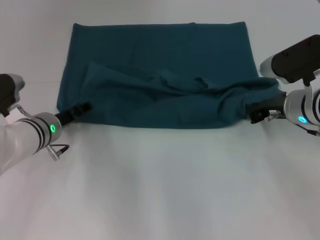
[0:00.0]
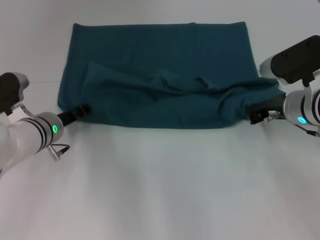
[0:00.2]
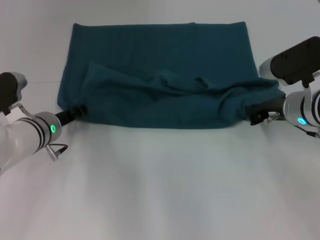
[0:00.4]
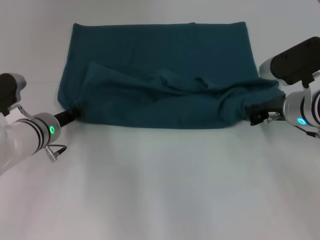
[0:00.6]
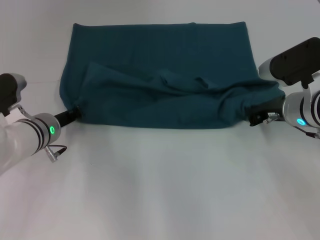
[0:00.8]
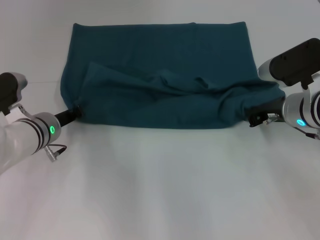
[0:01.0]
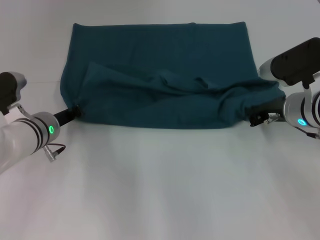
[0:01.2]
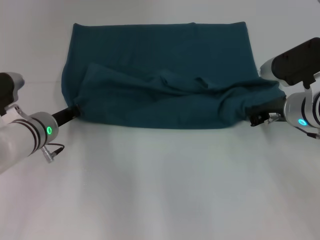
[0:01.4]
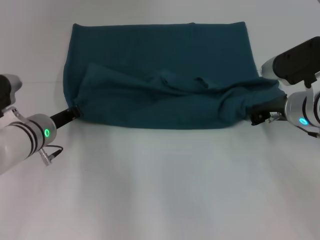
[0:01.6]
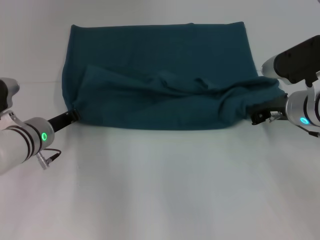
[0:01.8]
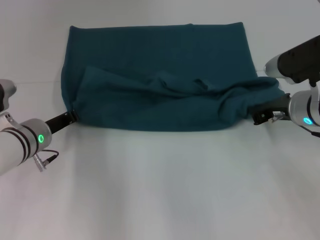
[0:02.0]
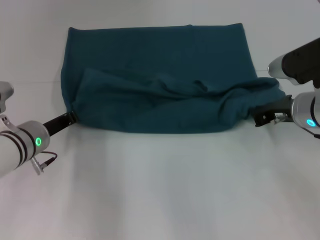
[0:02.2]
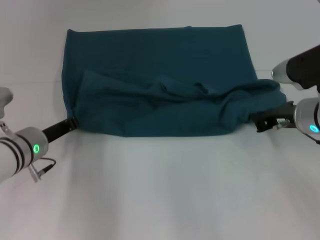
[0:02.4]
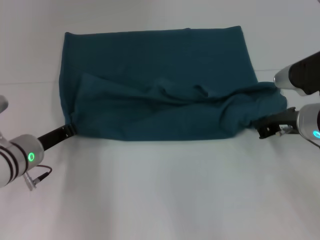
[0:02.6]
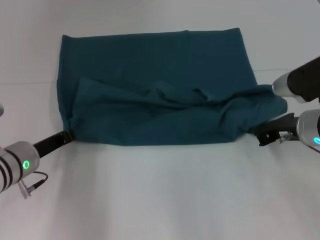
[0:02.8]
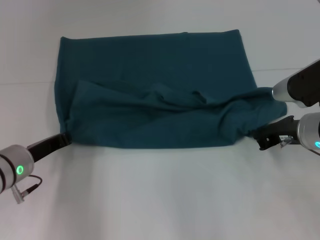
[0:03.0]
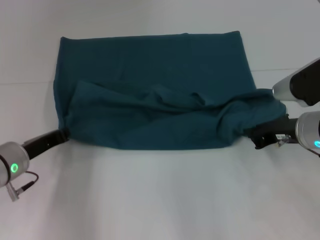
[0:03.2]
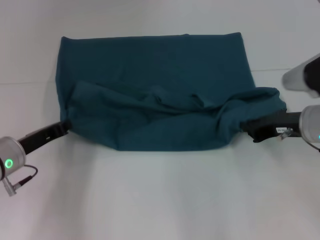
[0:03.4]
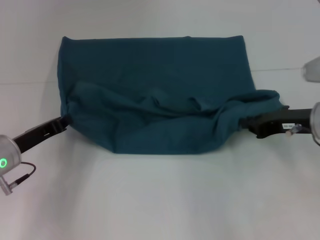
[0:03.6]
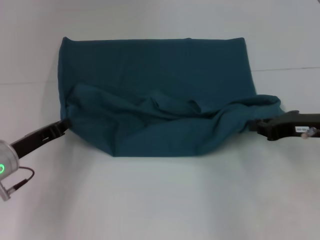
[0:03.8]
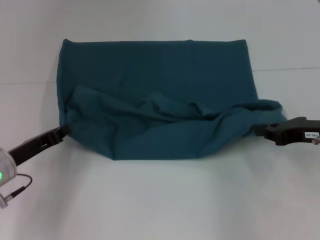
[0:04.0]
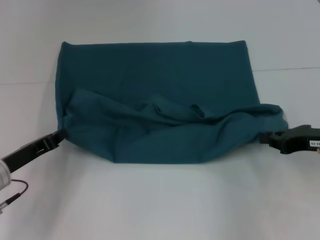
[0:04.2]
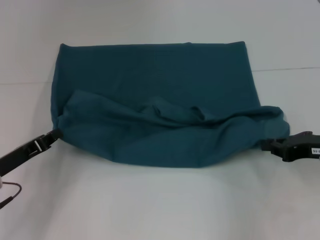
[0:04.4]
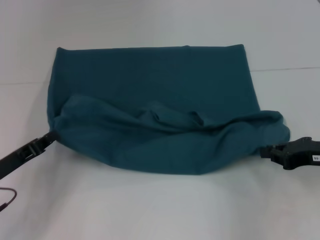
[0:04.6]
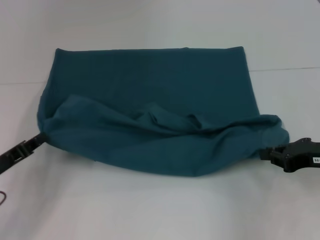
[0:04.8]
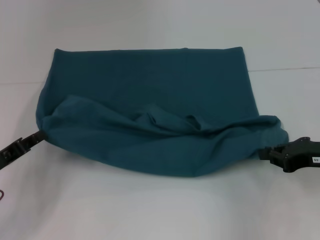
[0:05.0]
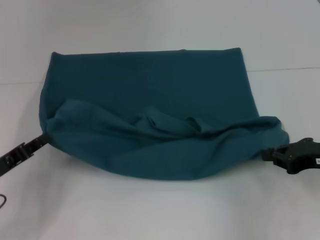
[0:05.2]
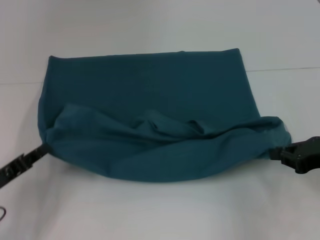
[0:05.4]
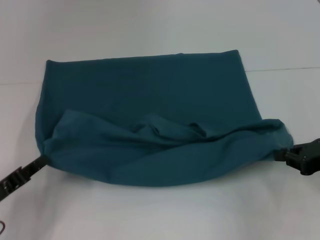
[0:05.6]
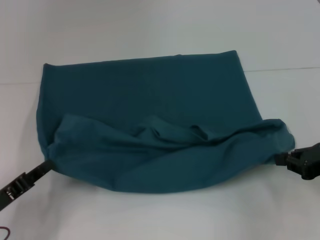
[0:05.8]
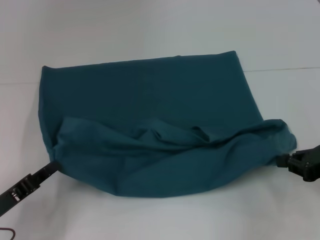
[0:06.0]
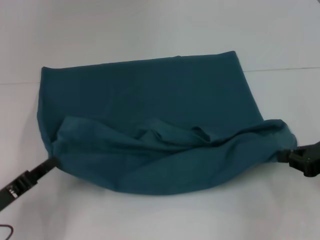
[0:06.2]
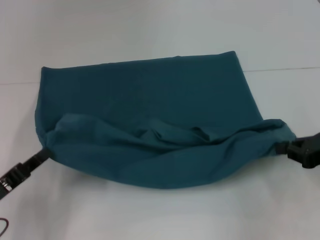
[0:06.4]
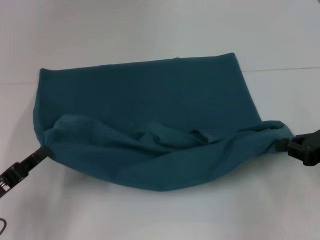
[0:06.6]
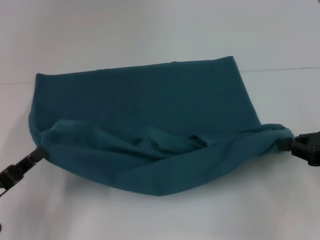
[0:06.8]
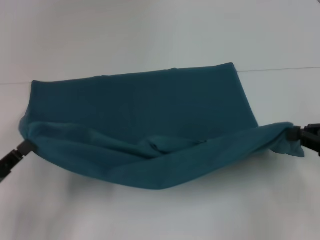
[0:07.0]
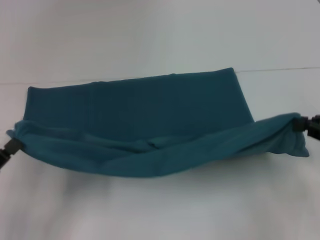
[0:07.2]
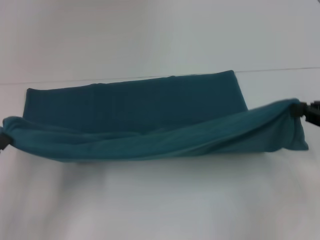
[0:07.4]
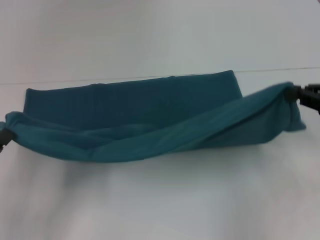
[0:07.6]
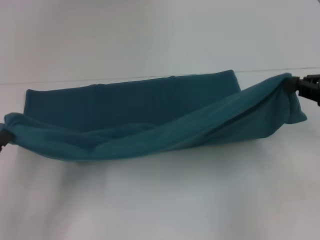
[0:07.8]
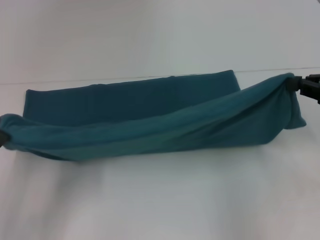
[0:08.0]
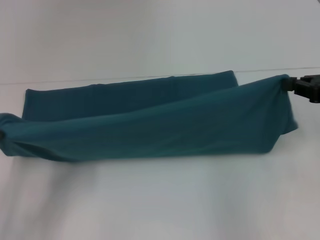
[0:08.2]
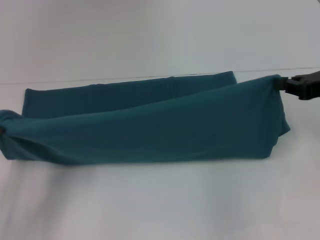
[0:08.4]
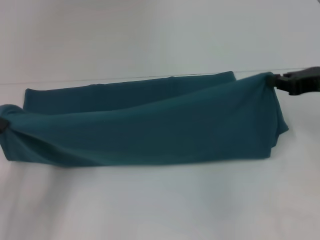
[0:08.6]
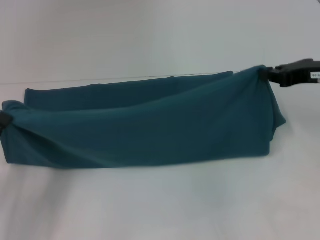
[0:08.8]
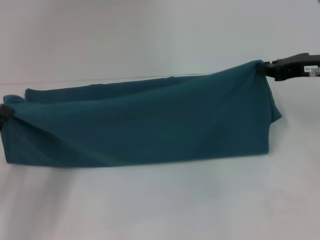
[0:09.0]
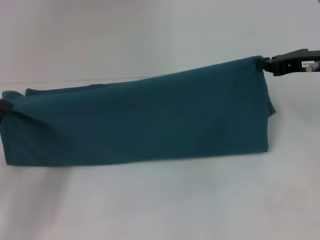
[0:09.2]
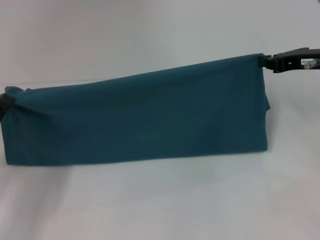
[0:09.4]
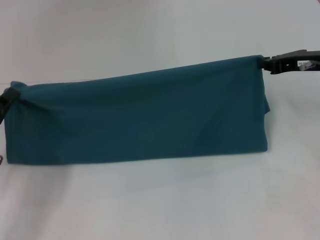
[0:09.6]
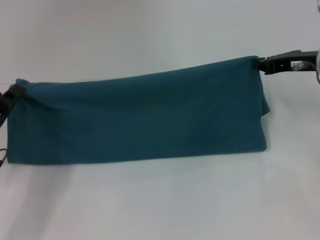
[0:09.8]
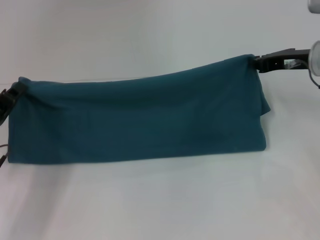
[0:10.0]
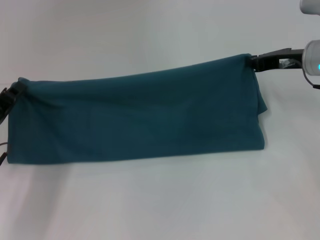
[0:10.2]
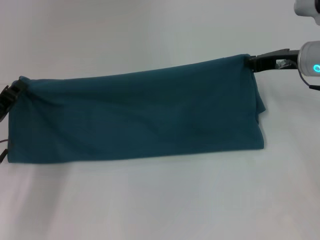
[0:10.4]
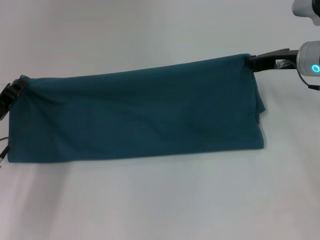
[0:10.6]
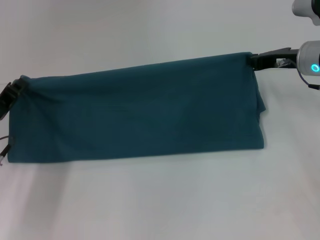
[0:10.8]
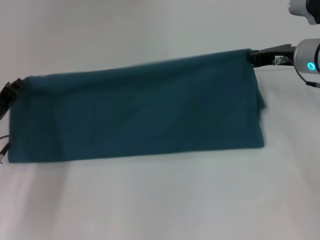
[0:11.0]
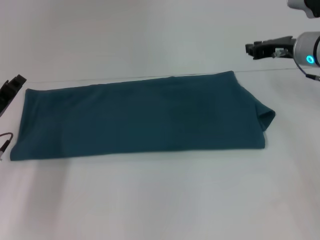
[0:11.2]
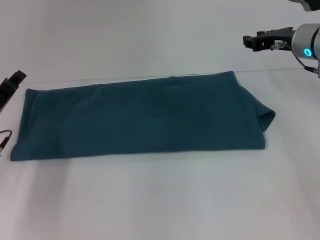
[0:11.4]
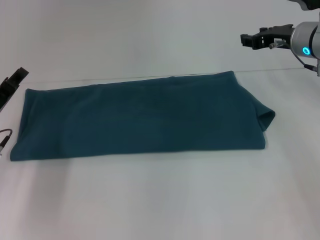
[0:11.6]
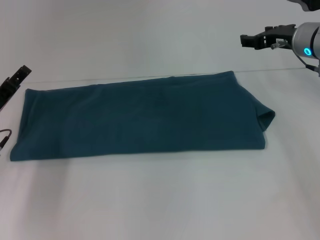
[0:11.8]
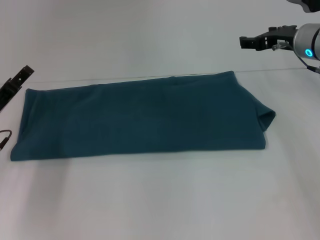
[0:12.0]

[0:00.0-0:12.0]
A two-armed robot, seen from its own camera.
Step, 0:00.0 to 0:07.0: Pull the clothes with your left hand.
Step, 0:00.0 to 0:07.0: Pull the clothes with your right hand.
Step, 0:07.2 to 0:11.2: Fold the clothes to the right.
0:00.0 to 0:01.6: The left gripper closes up.
0:01.6 to 0:03.0: The left gripper is displaced backward by some 5 cm.
0:03.0 to 0:04.4: The right gripper heads to the right, covering roughly 5 cm; the left gripper shifts about 5 cm to the left.
0:04.4 to 0:06.0: The left gripper is displaced backward by about 10 cm.
0:06.0 to 0:07.6: The right gripper is displaced upward by roughly 10 cm.
0:07.6 to 0:09.0: The right gripper heads forward, covering about 10 cm.
0:09.0 to 0:10.4: The left gripper shifts approximately 10 cm forward; the right gripper shifts about 5 cm forward.
0:10.4 to 0:12.0: The left gripper opens its fingers. Meanwhile the right gripper opens.

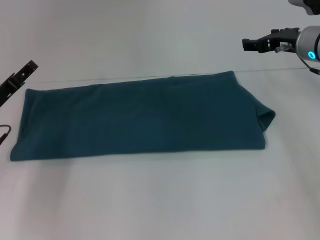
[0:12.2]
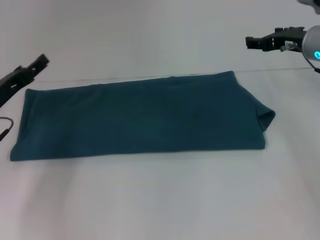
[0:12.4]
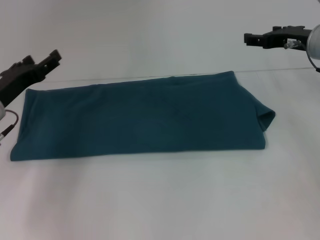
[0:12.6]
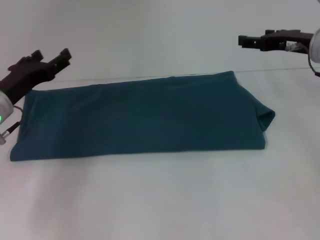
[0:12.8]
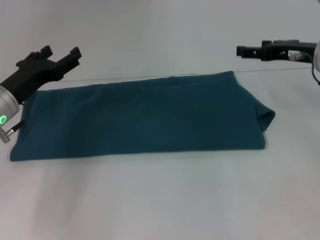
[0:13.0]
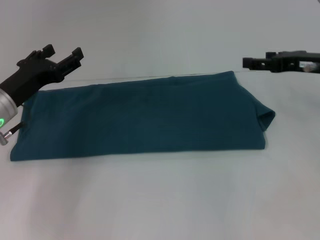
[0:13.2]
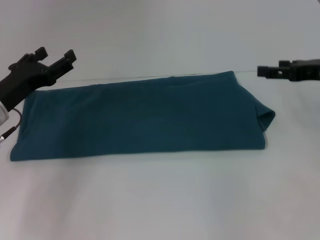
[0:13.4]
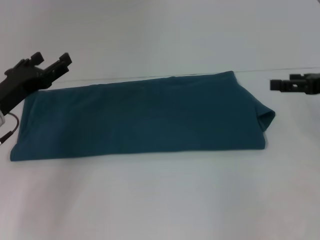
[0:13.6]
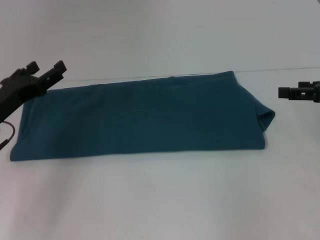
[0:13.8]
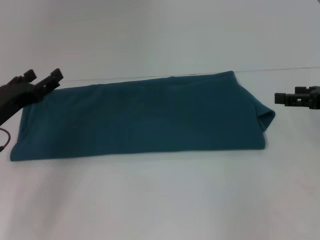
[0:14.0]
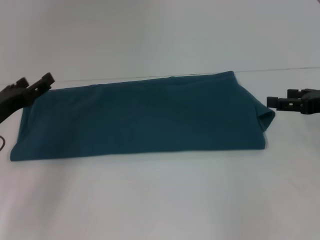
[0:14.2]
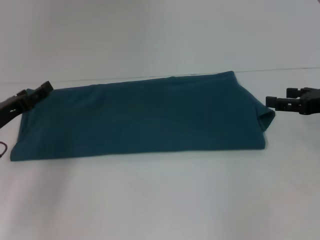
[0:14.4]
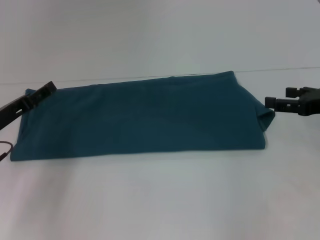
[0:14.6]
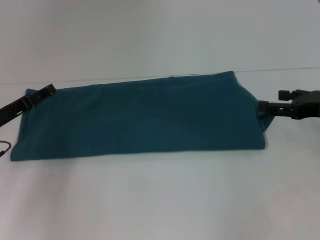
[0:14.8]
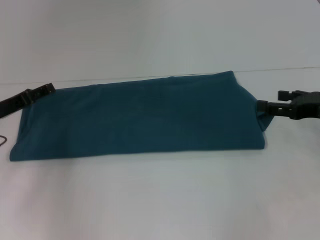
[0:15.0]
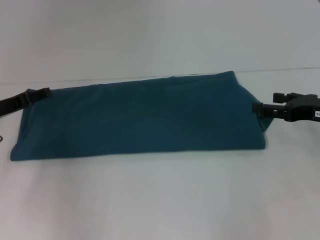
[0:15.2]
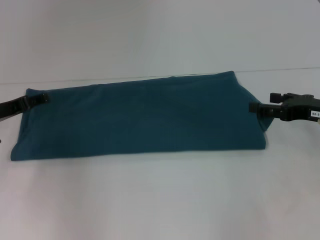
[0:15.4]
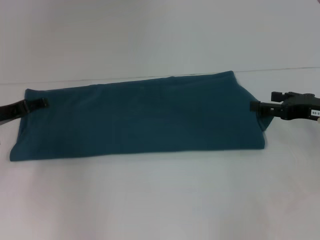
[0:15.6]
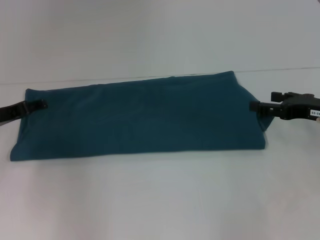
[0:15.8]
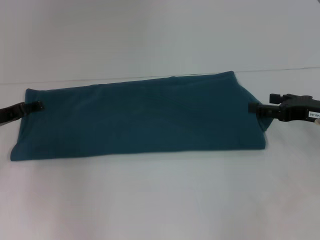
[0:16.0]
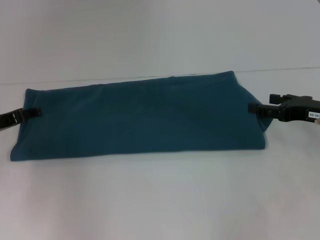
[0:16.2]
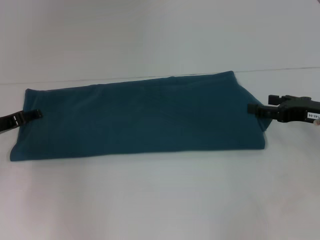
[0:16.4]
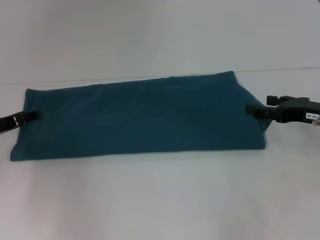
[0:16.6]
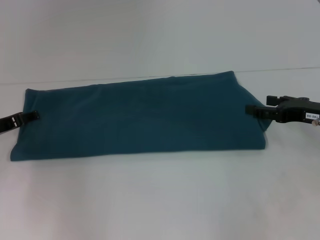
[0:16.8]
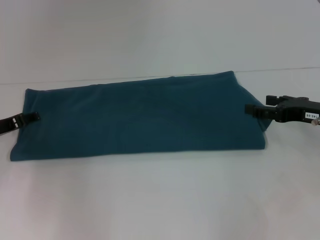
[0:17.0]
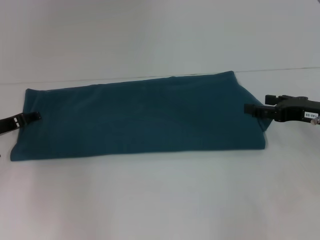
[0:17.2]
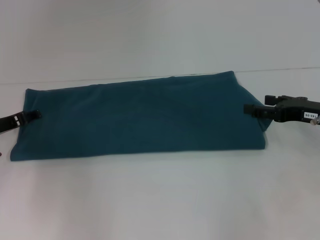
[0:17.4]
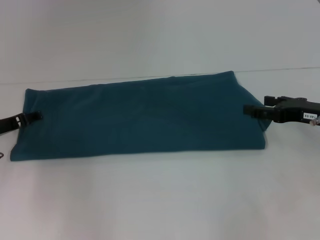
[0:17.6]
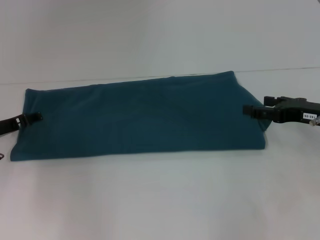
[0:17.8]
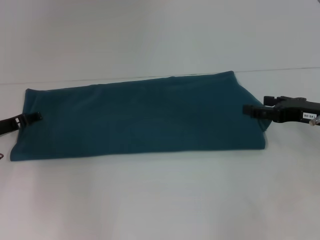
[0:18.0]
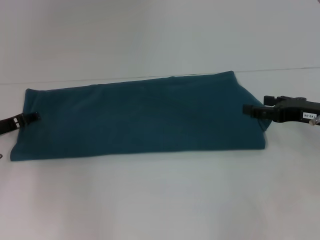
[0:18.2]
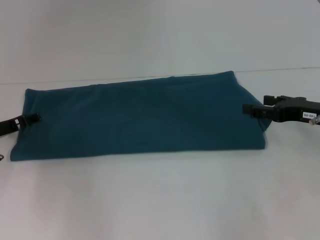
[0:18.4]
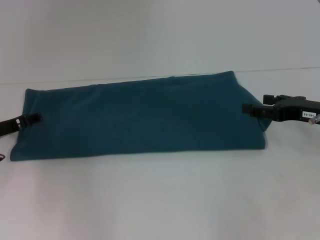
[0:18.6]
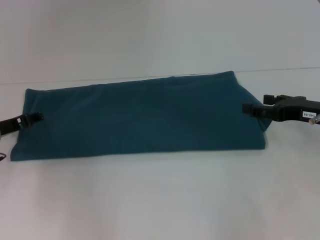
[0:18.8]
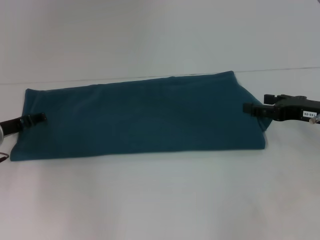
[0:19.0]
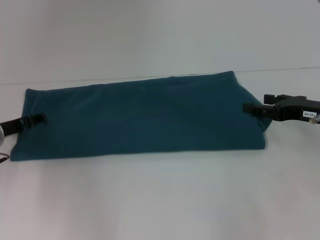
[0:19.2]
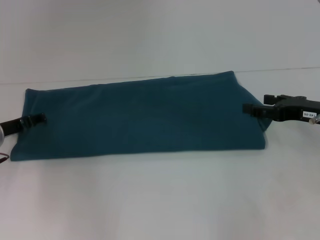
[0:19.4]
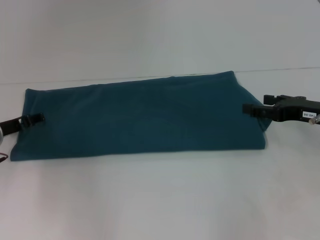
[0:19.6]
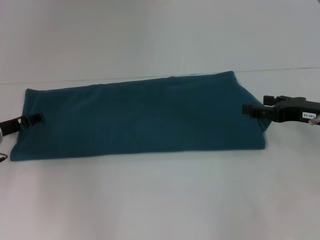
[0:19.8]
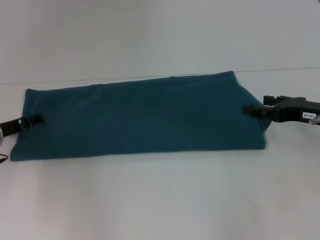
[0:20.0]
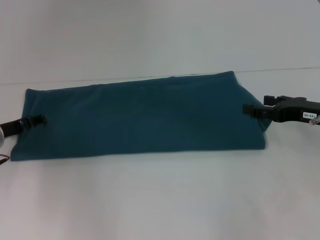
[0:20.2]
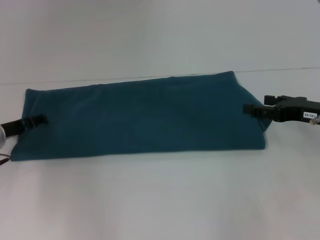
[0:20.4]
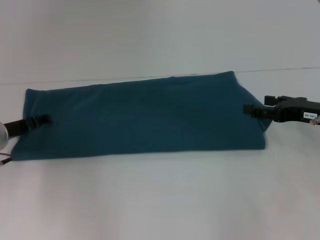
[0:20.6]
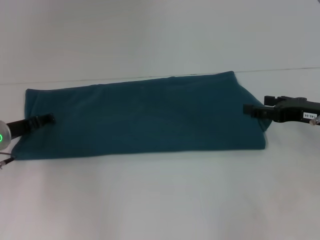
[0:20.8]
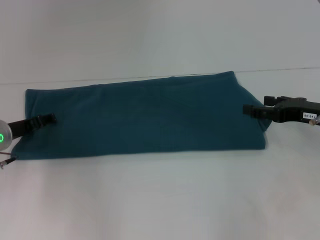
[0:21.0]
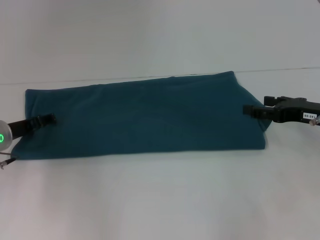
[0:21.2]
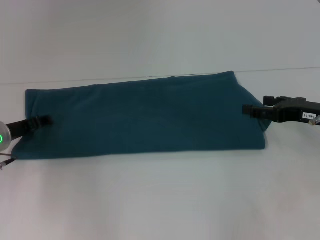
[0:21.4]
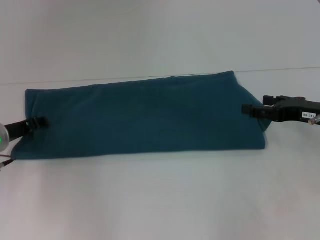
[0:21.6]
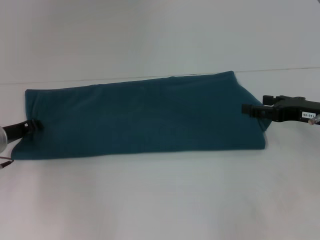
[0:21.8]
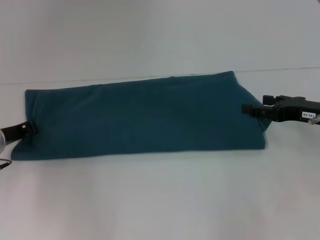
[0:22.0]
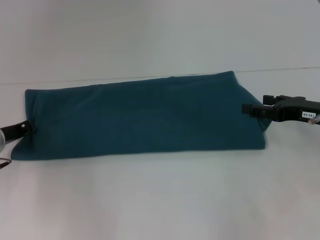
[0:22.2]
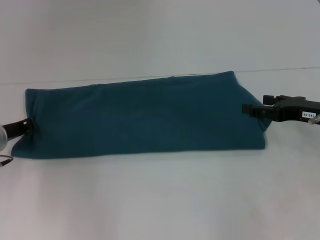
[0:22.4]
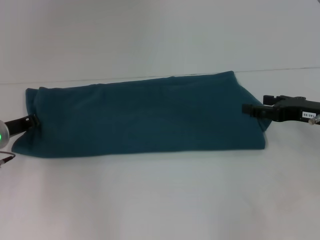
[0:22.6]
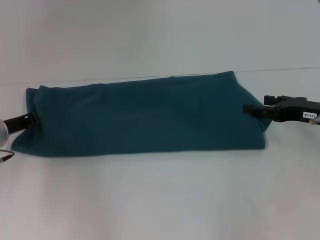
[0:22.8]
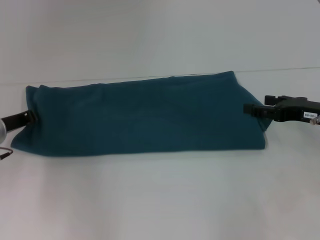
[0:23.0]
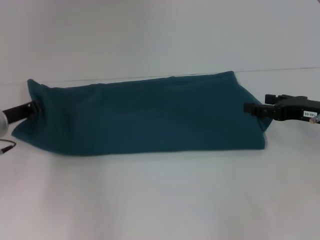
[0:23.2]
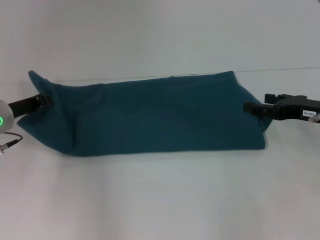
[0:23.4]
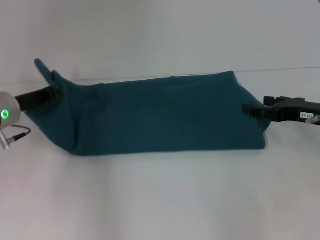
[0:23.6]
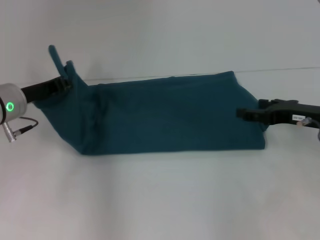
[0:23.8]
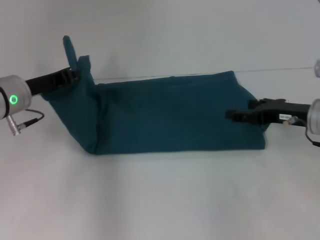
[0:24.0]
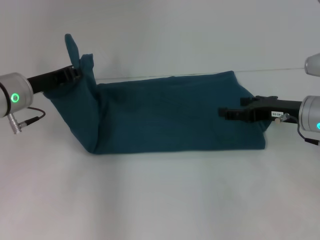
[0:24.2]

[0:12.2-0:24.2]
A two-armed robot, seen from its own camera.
0:12.2 to 0:13.8: The right gripper is displaced backward and to the right by roughly 15 cm.
0:13.8 to 0:15.2: The right gripper moves roughly 5 cm.
0:15.2 to 0:16.6: There are only small adjustments of the grippers.
0:18.2 to 0:19.8: Both grippers stay put.
0:19.8 to 0:21.2: Both grippers stay put.
0:21.2 to 0:22.6: The left gripper closes its fingers.
0:22.6 to 0:24.2: The left gripper travels upward by some 10 cm.
